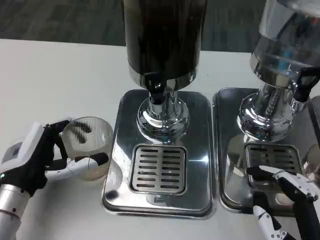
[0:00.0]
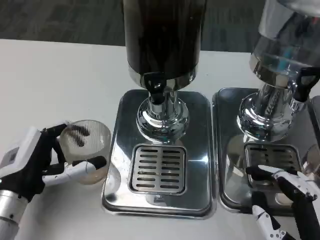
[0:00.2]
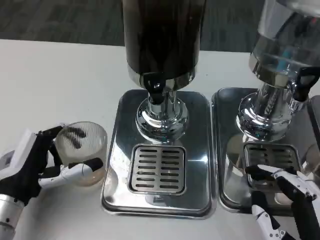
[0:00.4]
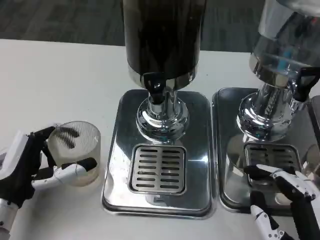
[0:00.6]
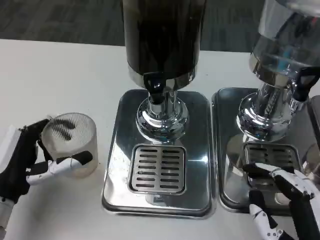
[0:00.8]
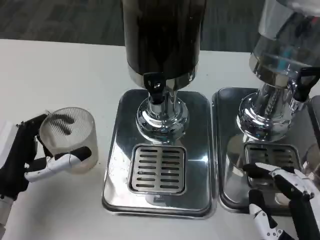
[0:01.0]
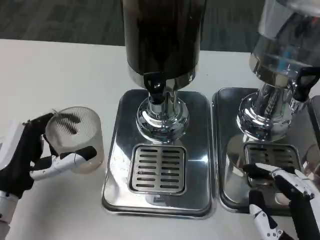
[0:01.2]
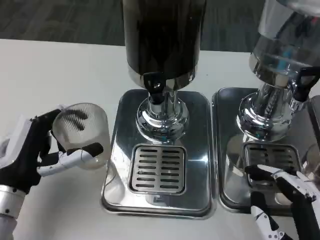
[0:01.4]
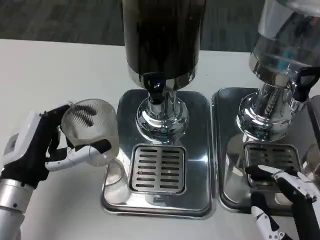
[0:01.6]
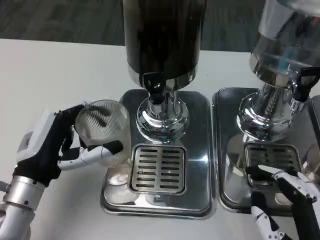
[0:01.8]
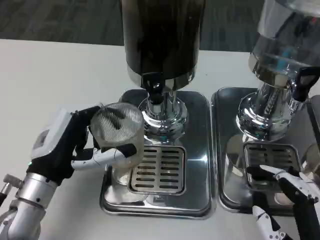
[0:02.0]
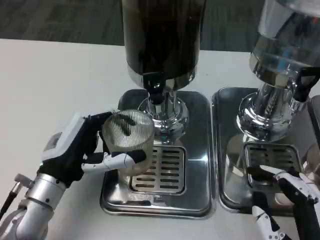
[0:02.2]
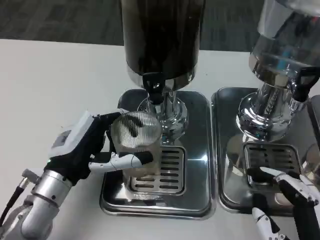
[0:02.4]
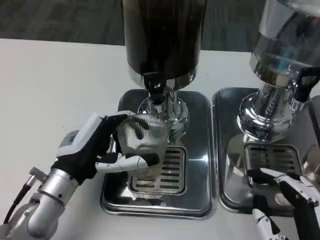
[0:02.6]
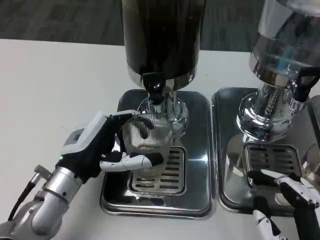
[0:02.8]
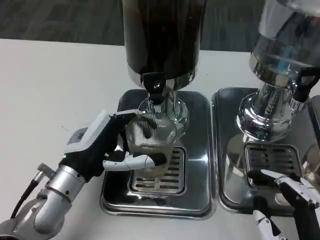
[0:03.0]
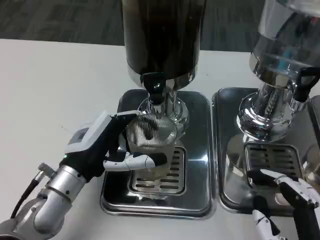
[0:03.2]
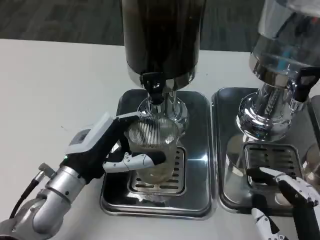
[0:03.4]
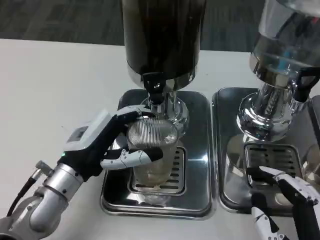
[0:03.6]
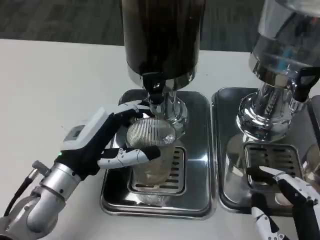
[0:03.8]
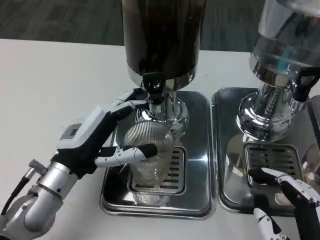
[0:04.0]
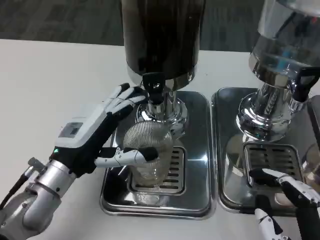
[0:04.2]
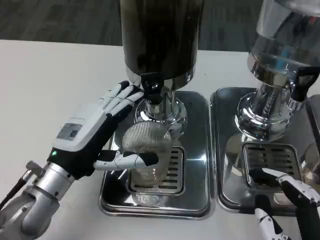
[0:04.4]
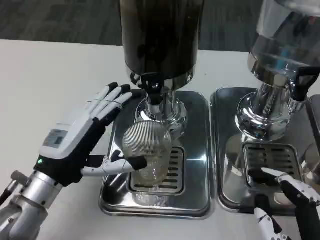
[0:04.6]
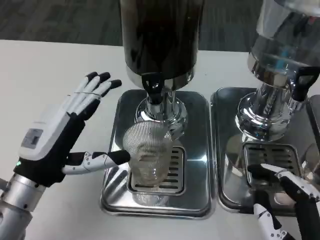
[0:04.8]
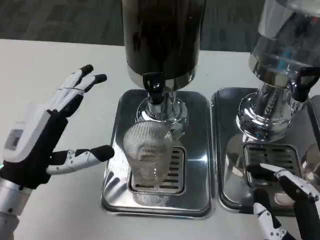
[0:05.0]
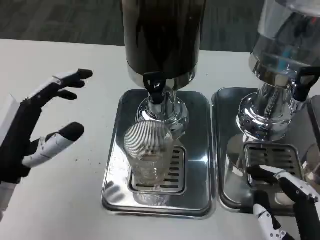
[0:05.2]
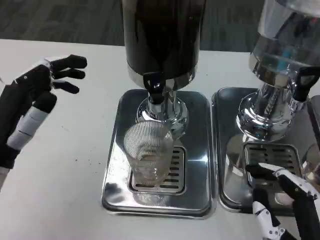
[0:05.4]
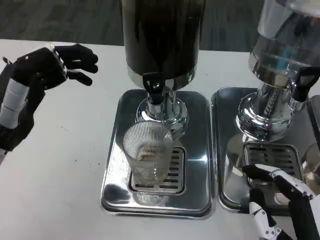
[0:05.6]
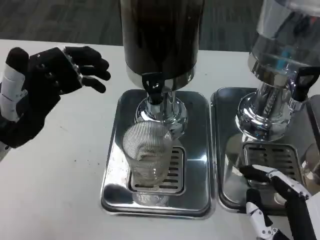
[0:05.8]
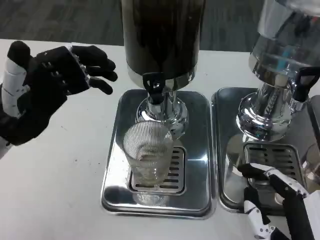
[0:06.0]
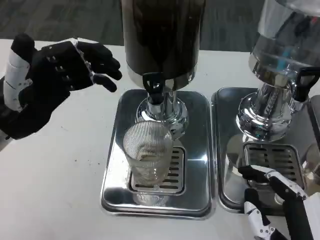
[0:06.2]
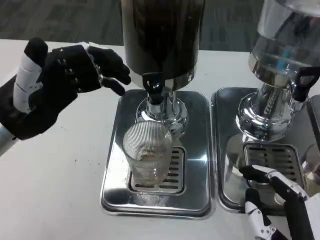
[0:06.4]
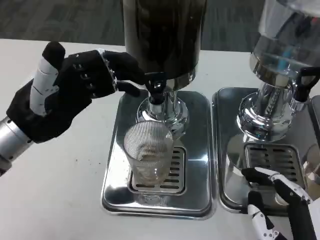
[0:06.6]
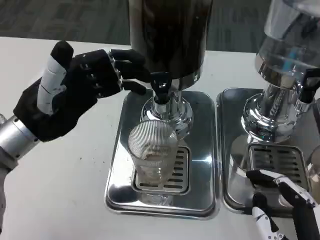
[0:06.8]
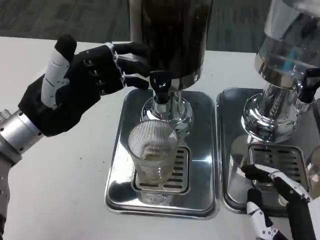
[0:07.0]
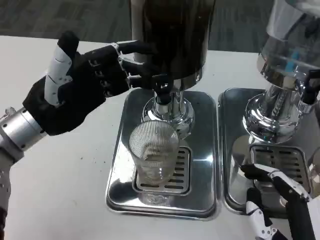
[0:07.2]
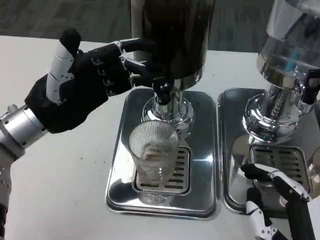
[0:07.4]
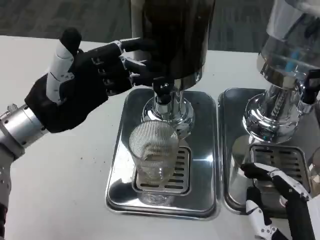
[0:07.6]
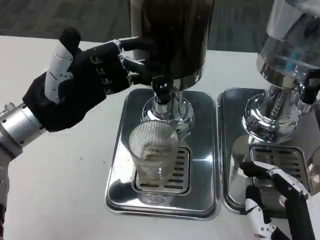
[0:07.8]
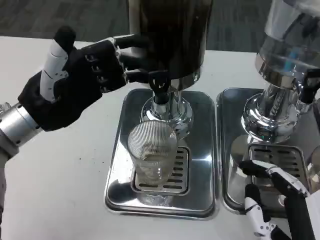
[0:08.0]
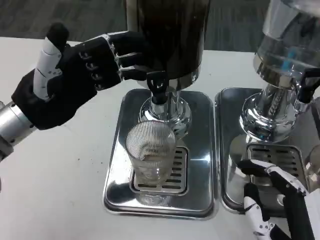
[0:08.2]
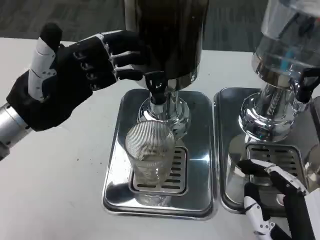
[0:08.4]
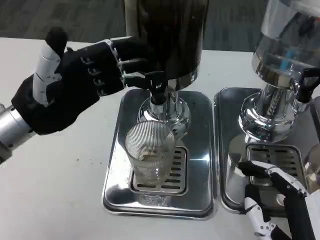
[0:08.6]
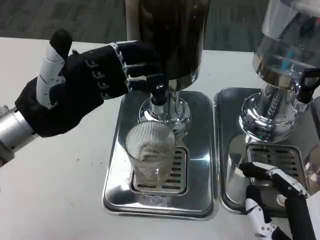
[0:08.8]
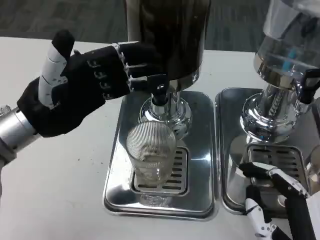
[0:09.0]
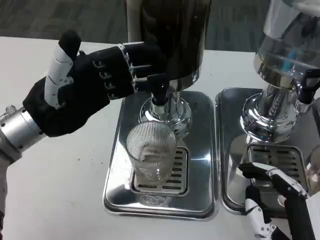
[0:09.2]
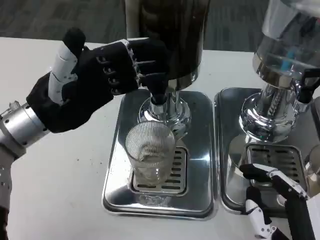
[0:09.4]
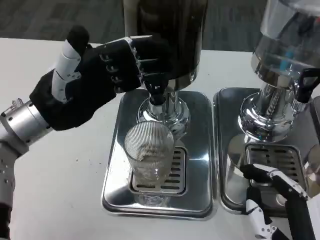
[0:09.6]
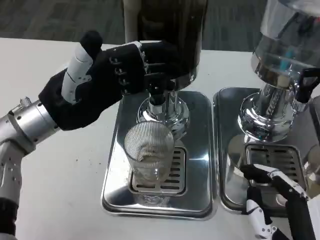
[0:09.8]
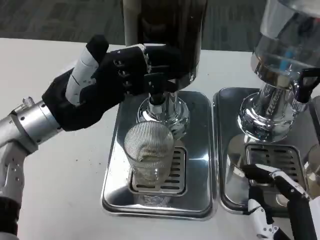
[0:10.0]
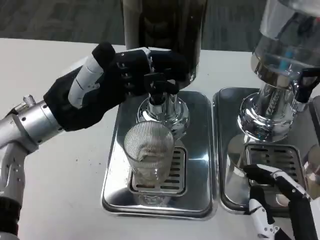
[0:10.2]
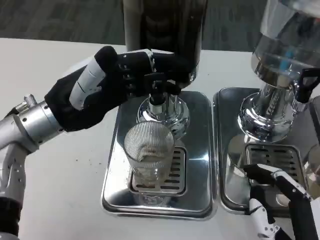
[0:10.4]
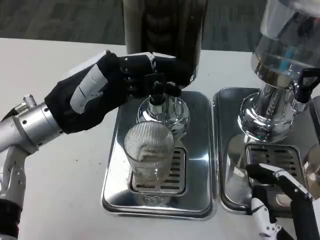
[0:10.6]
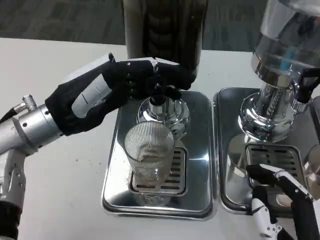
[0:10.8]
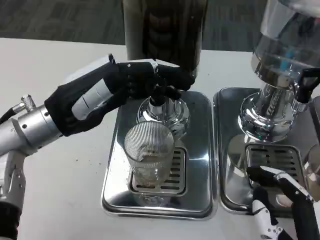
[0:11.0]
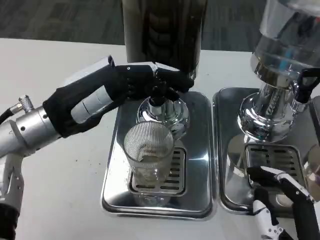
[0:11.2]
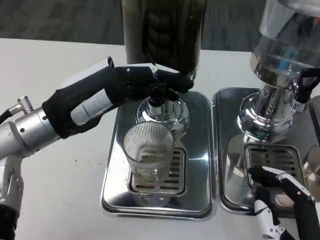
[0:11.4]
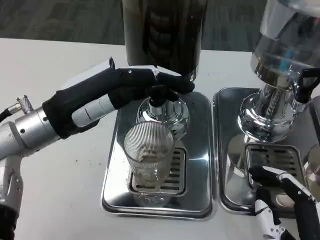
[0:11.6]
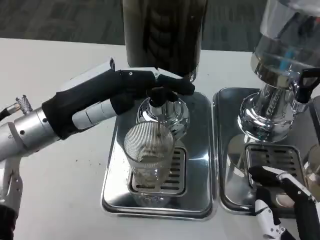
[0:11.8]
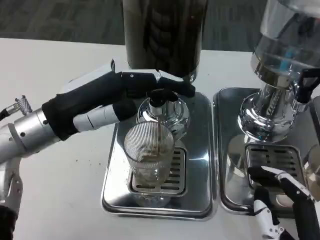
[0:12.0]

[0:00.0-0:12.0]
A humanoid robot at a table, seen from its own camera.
Task of the whole recording: Grasp the cup under the faucet to collect the drink, then remove the cup.
0:00.0 to 0:01.6: There are only small adjustments of the hands.
0:01.6 to 0:03.0: The left hand moves to the right, about 5 cm.
0:04.4 to 0:06.0: The left hand goes roughly 10 cm upward and to the left.

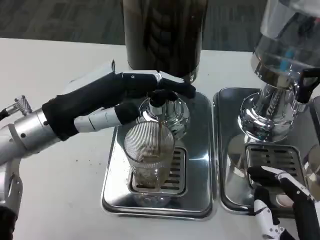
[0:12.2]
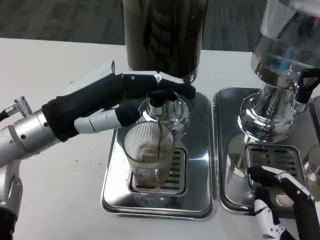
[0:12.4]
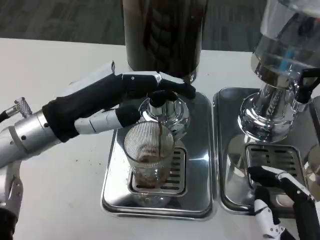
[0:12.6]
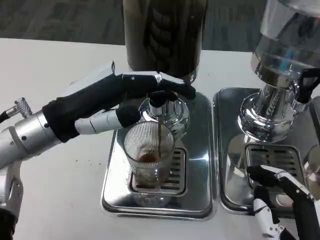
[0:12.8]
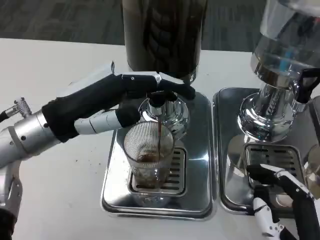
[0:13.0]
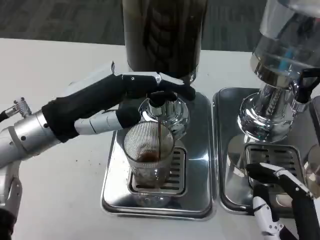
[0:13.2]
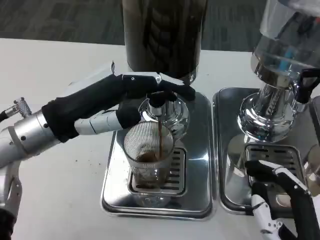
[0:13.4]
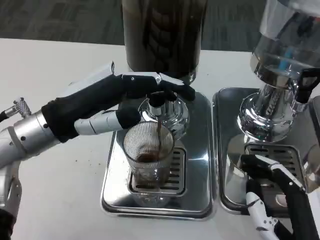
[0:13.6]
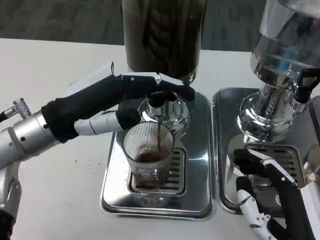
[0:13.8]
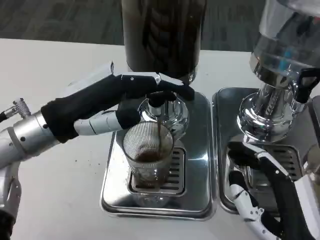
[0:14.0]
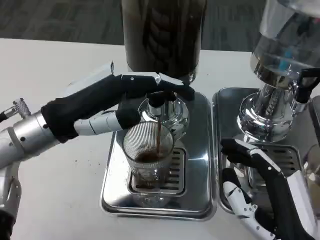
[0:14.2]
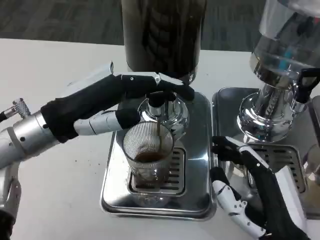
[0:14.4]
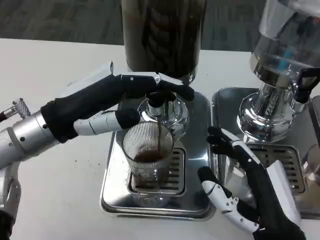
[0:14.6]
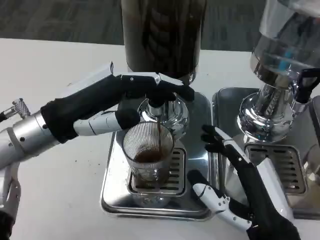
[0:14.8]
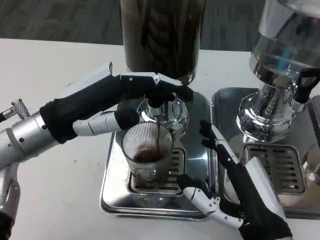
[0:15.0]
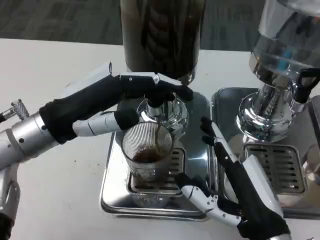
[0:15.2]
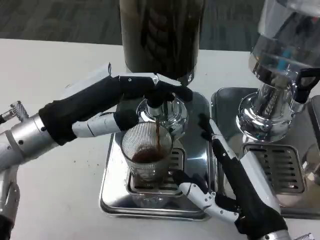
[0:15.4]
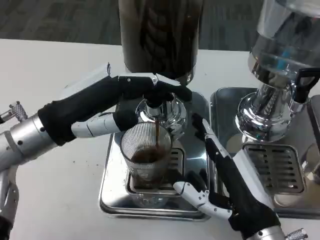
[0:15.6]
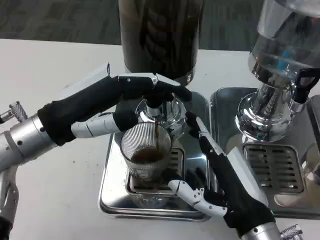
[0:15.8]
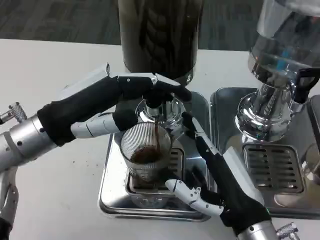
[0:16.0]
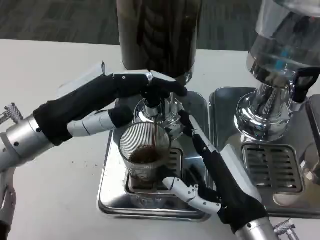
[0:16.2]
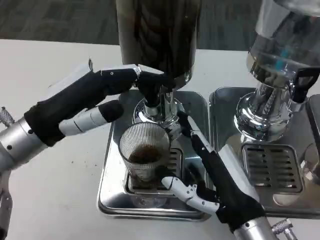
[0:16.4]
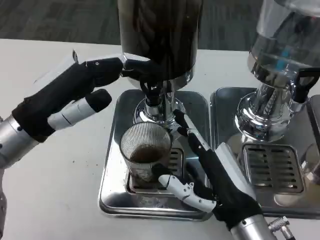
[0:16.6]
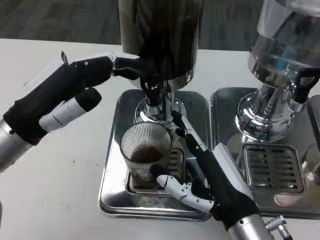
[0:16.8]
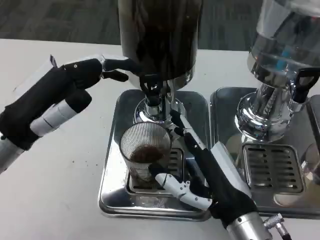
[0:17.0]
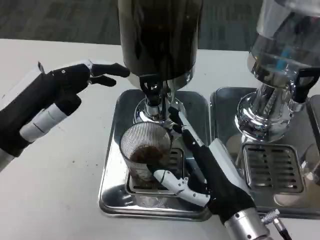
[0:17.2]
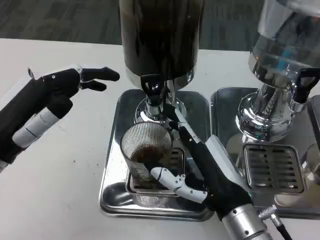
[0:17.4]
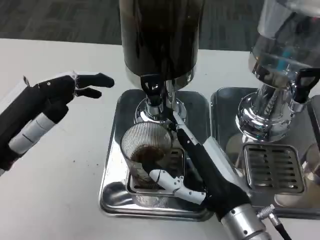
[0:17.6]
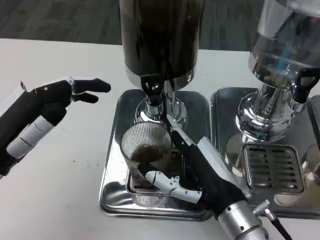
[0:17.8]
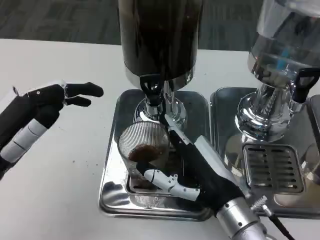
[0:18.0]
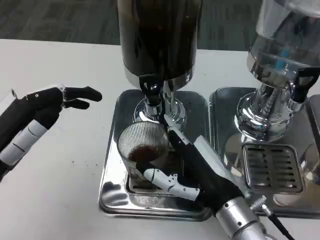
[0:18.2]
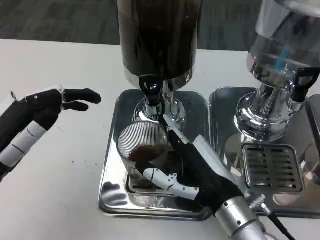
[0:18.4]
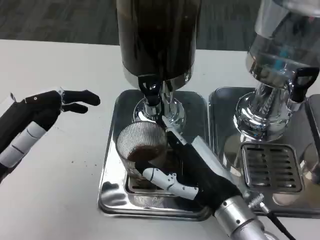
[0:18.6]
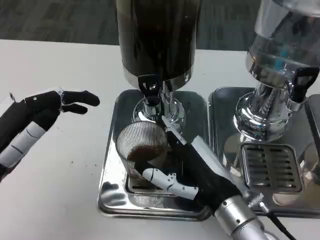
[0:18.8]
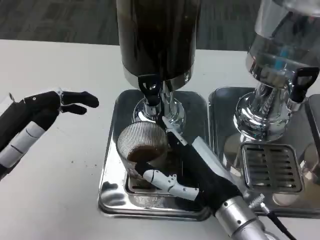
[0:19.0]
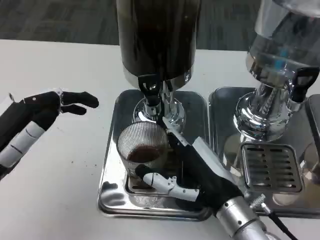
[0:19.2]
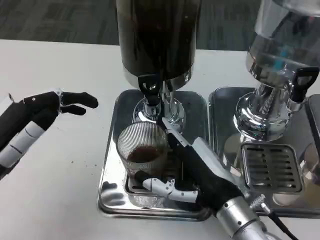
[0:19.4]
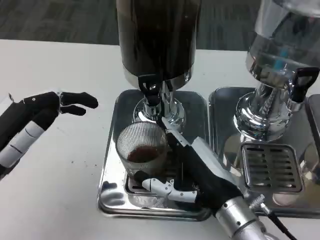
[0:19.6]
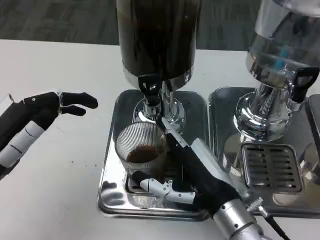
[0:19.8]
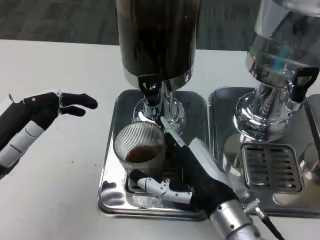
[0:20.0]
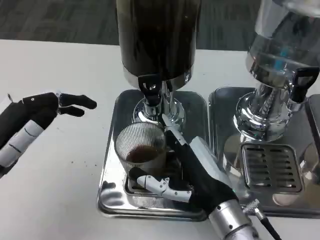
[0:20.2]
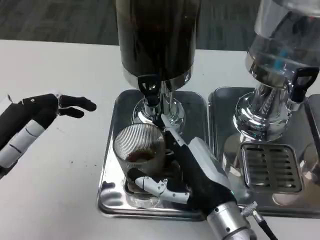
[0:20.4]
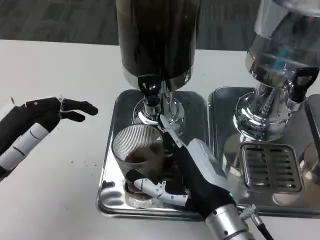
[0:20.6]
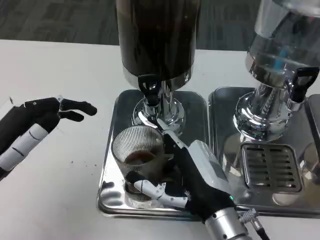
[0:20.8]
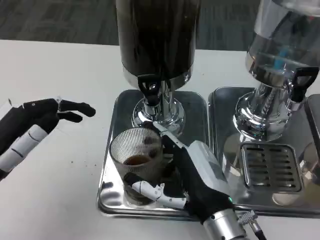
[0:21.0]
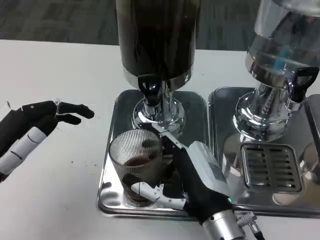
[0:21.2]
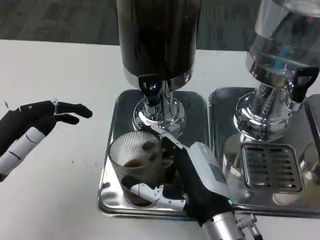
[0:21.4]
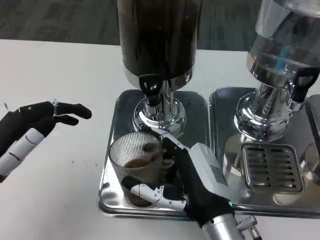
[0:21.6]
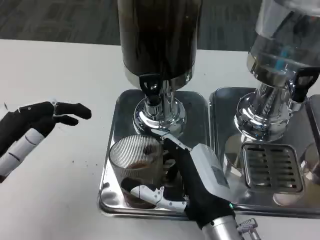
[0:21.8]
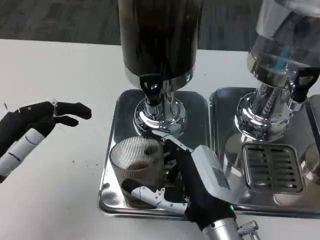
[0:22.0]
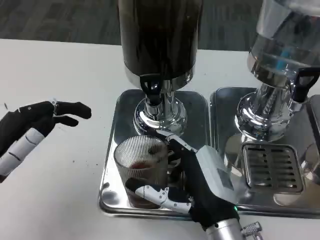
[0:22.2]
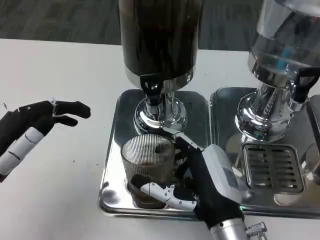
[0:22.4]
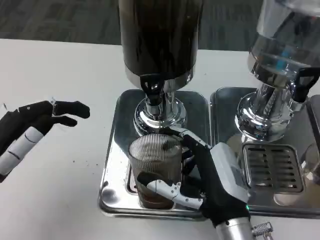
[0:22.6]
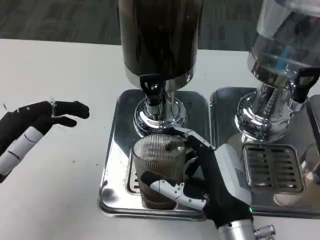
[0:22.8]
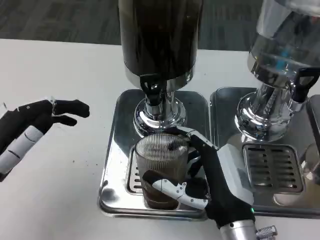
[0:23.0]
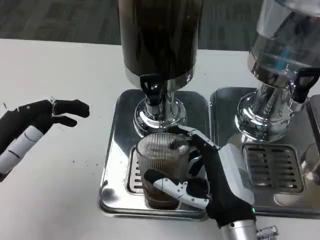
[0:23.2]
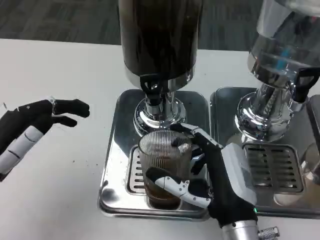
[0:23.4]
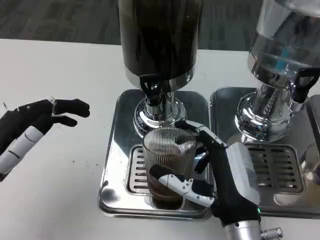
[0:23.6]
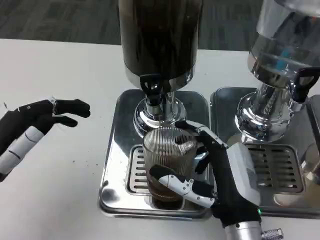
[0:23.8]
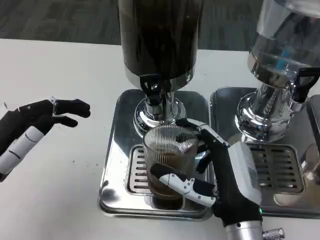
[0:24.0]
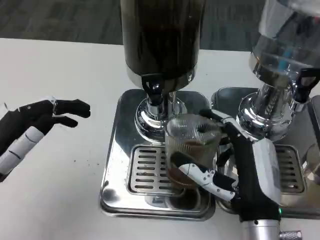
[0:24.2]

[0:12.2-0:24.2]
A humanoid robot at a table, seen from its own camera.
Task of the whole recording: Grasp the cup under the faucet to collect the drink, then remove the cup.
0:12.2 to 0:13.8: The hands move only a little.
0:13.8 to 0:15.2: The right hand moves roughly 5 cm.
0:16.6 to 0:18.2: The left hand travels backward by some 5 cm.
0:18.2 to 0:19.8: The two hands keep their place.
0:19.8 to 0:21.2: The hands make only small movements.
